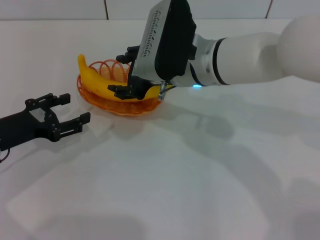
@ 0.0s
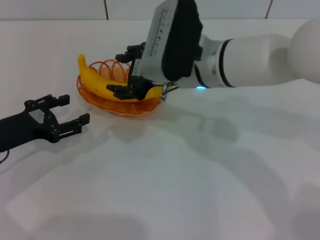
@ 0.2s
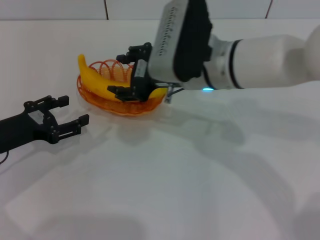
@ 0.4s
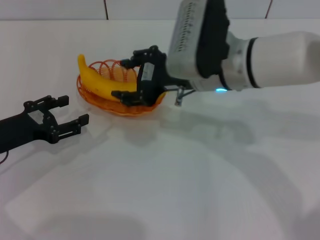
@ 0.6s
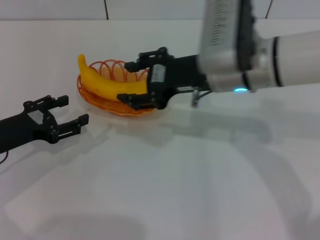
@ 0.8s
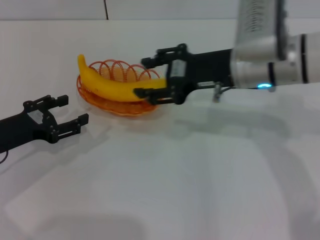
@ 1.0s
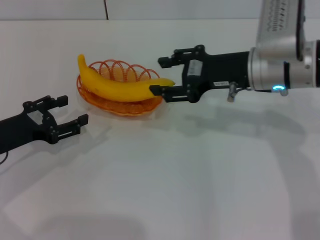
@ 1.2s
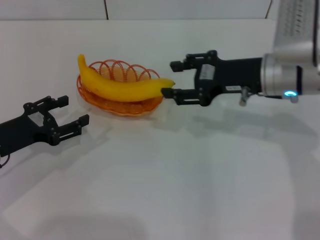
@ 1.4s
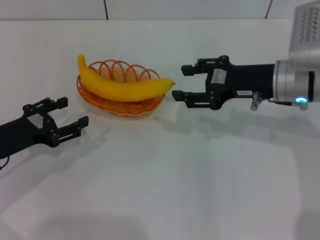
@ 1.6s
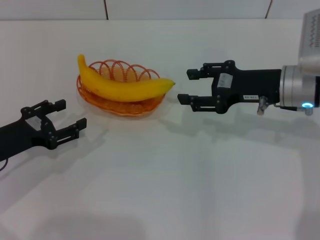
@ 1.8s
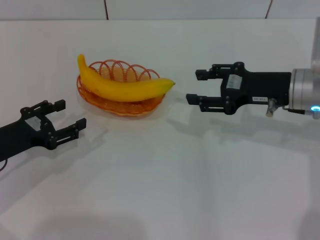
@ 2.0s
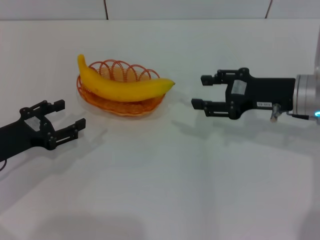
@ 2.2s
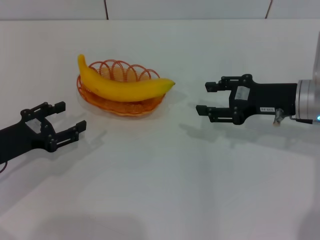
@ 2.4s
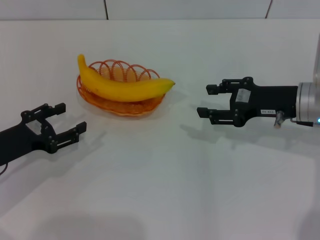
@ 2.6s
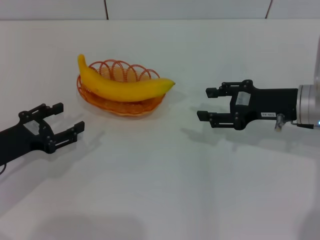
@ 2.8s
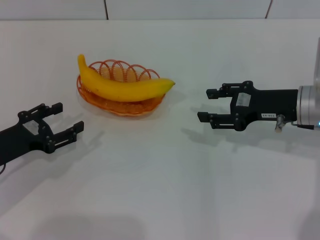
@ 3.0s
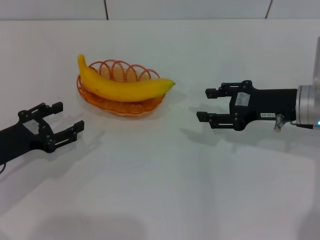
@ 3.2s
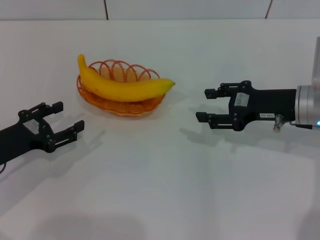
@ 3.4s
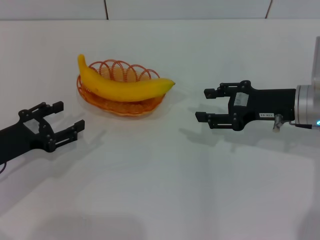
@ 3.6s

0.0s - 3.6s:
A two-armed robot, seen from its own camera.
0.0s - 1.8s: The right gripper shifts approximately 15 cm to the right.
1.8s - 3.6s: There are only small adjustments of the grippers.

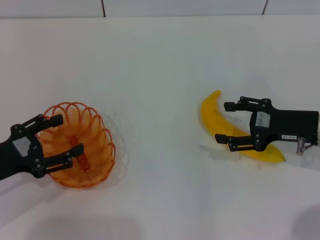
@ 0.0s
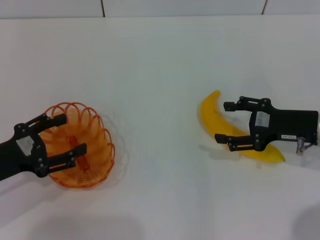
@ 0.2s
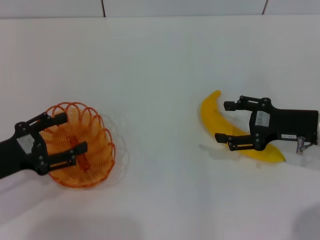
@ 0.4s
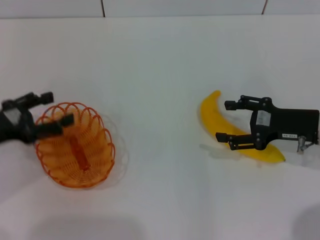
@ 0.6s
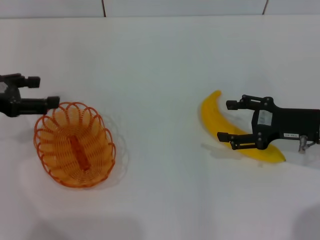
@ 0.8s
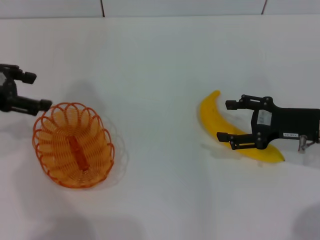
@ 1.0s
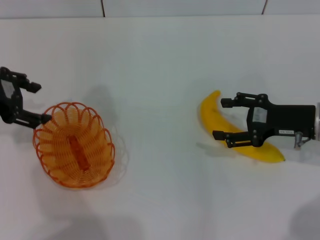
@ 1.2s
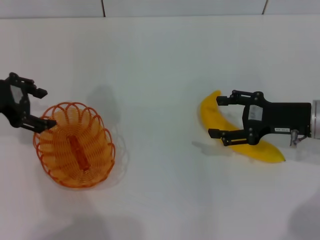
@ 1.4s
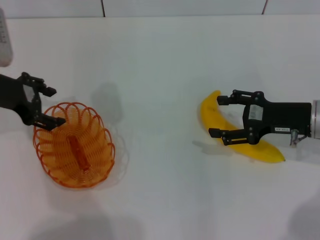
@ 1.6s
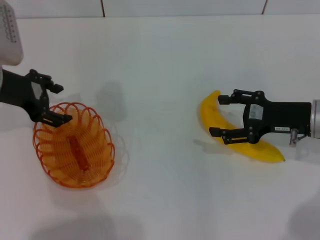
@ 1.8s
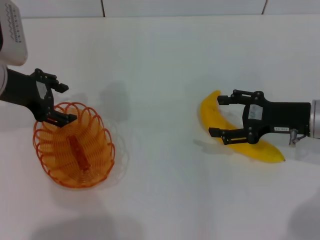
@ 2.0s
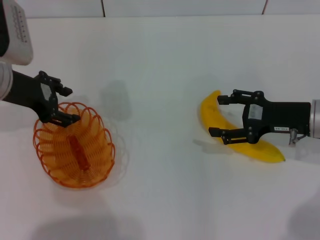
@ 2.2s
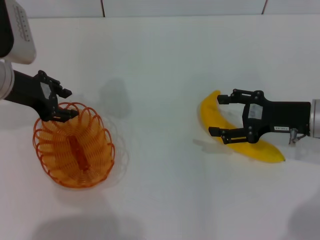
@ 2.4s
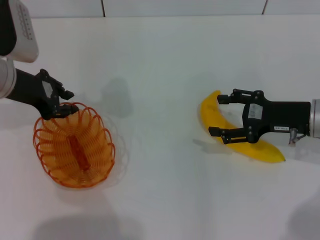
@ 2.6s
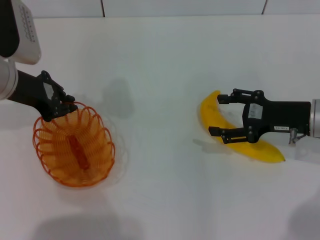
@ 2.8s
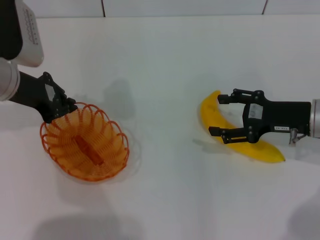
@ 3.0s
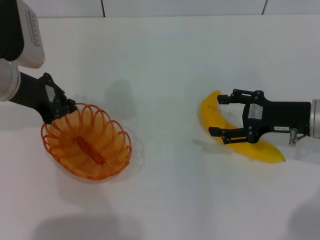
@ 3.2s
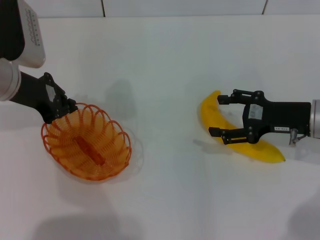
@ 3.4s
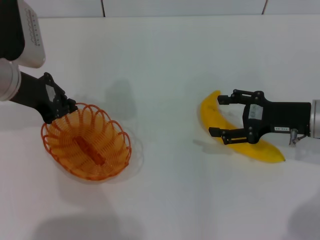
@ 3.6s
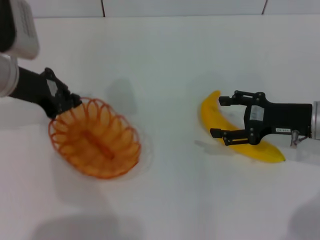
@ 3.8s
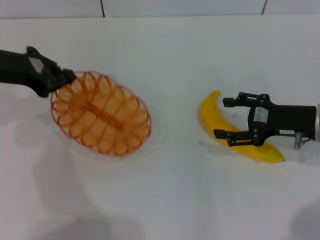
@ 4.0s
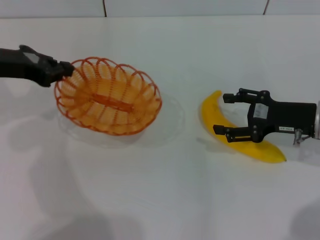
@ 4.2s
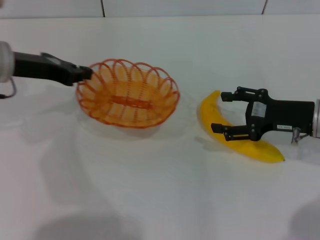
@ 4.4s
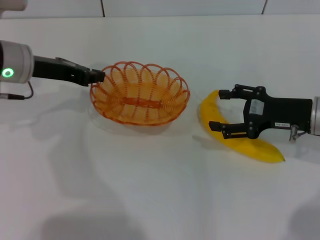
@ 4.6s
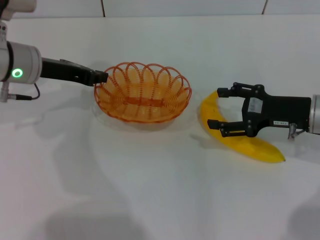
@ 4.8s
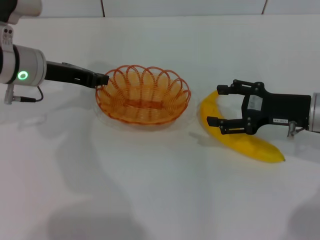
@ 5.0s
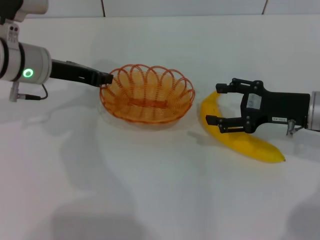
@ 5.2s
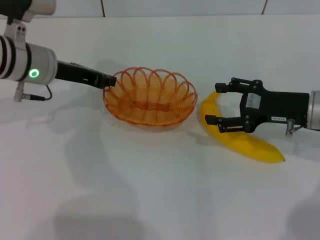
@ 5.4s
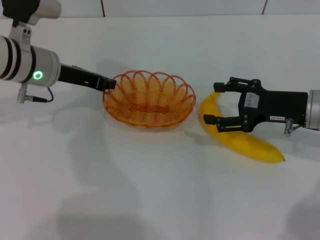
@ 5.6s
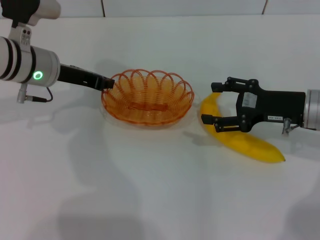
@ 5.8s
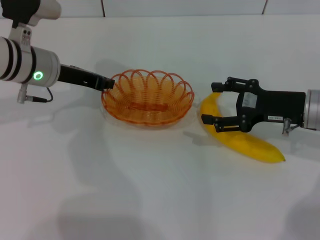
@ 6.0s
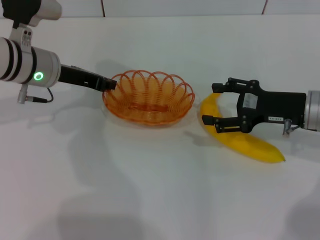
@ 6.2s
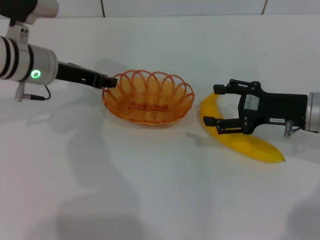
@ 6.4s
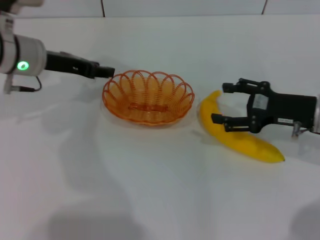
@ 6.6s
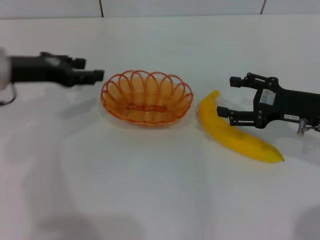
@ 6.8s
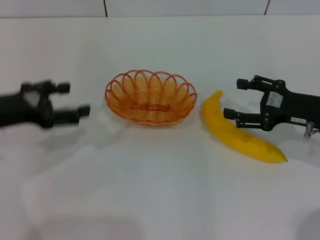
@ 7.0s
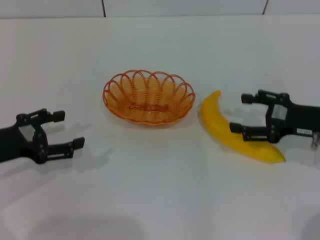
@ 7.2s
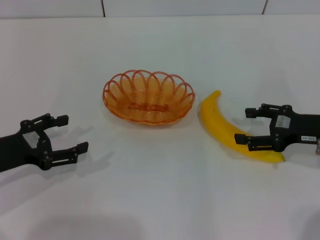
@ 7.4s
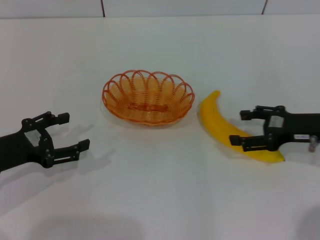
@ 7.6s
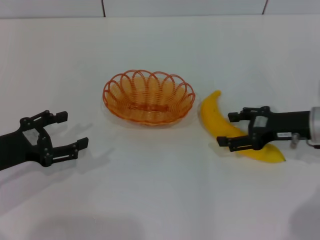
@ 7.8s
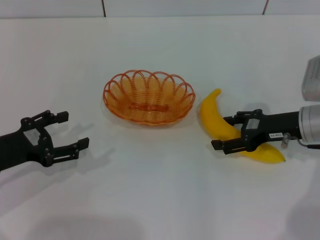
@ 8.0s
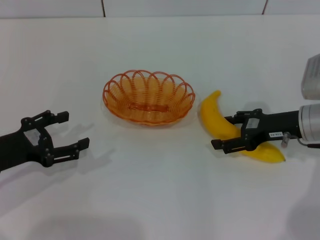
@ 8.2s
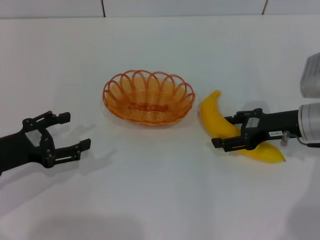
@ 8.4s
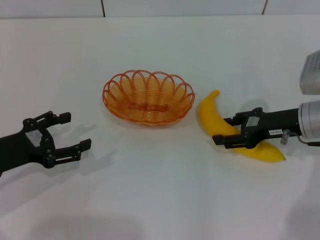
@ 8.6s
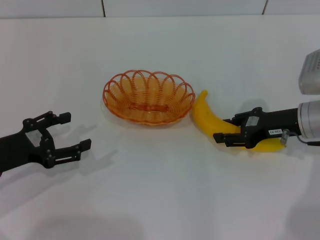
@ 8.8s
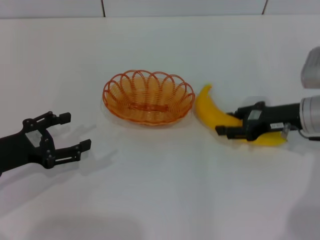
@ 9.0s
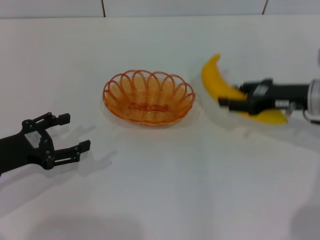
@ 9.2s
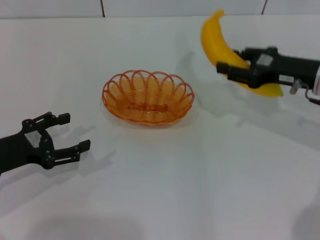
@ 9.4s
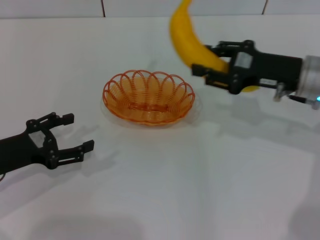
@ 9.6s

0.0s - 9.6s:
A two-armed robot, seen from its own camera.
Step, 0.0s - 3.8s: Pick up the basket with the left gripper.
Step, 4.0s - 6.6s: Place the basket in the center of view with the left gripper.
Step, 6.8s - 9.0s: Pick up the banana with the right gripper.
0.0s - 1.6s: The left gripper shifts approximately 15 cm forward and upward.
1.6s - 3.2s: The left gripper closes its fingers.
4.8s - 6.4s: The grippers move only a little.
6.4s - 8.0s: The left gripper is displaced backward, to the left and downward by about 20 cm, and opens its fingers.
8.0s - 9.6s: The right gripper shifts about 5 cm upward, and closes.

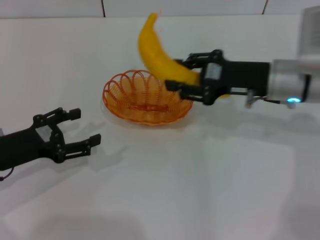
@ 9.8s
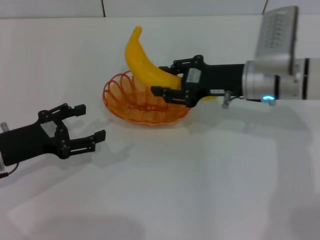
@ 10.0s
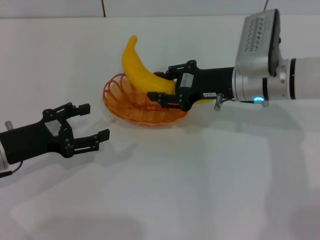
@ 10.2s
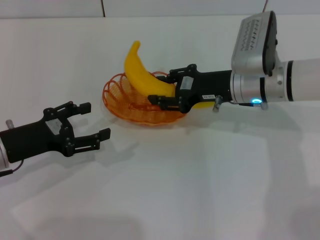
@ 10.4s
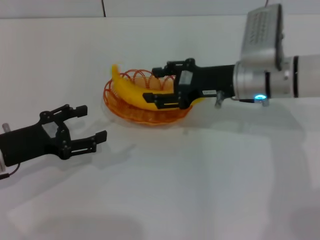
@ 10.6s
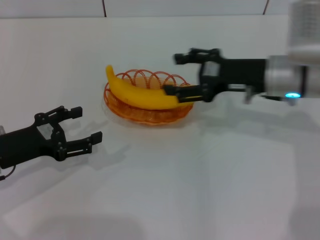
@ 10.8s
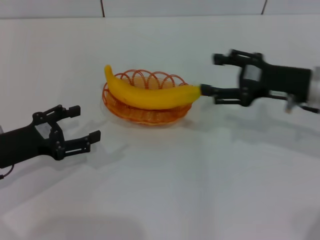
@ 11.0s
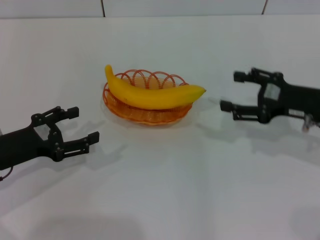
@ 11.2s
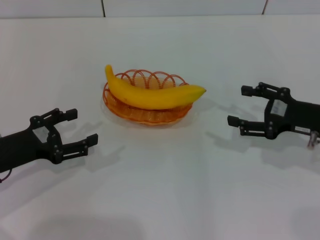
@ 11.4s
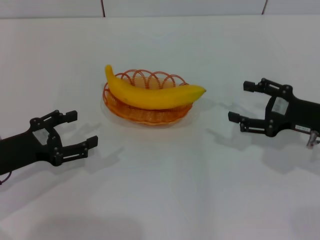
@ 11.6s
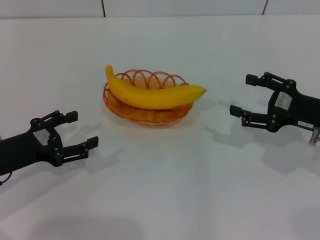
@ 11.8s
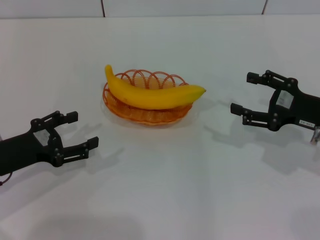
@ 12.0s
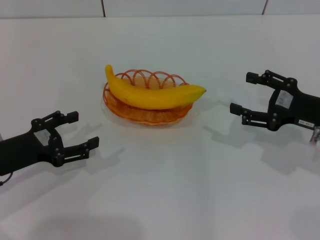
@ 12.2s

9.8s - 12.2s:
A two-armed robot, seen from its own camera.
Step, 9.8s - 10.6s: Place the banana into the basket with the right gripper.
9.8s - 11.0s: The right gripper is displaced to the right by about 5 cm, and opens up.
11.0s - 12.2s: The right gripper moves roughly 5 cm.
